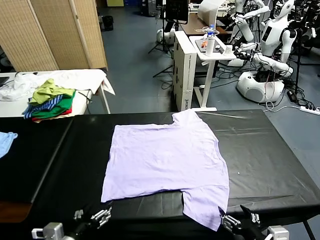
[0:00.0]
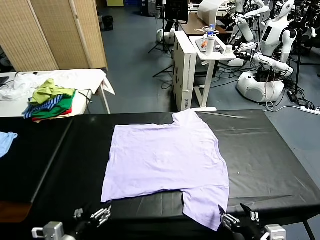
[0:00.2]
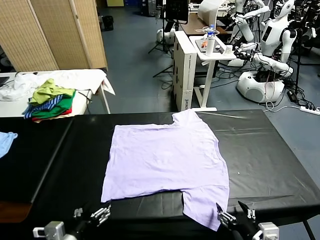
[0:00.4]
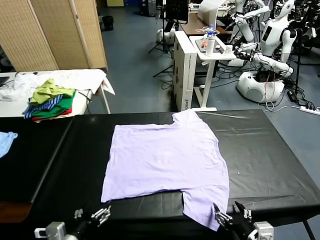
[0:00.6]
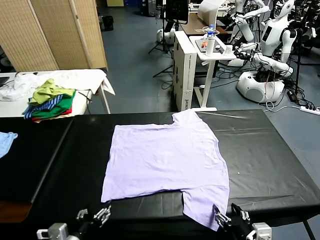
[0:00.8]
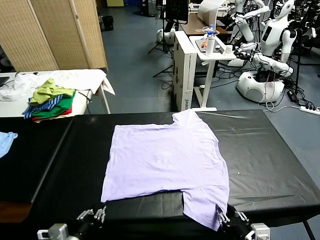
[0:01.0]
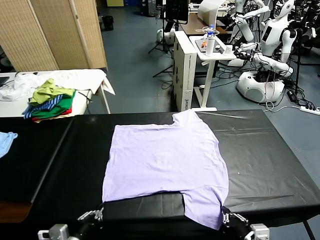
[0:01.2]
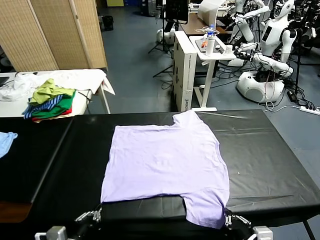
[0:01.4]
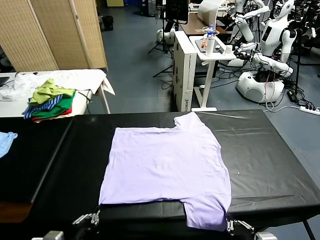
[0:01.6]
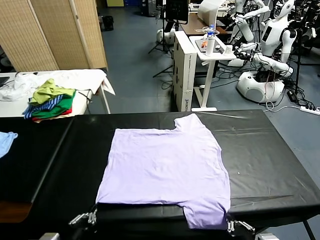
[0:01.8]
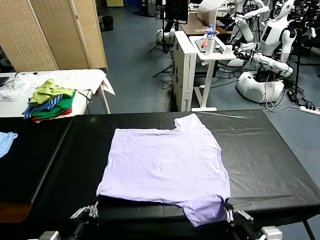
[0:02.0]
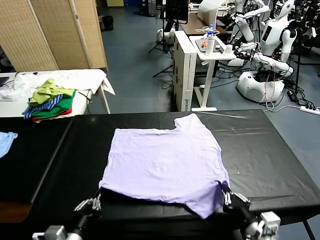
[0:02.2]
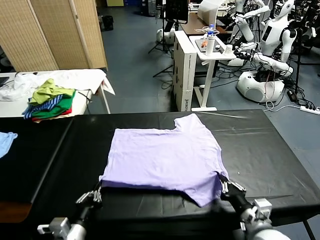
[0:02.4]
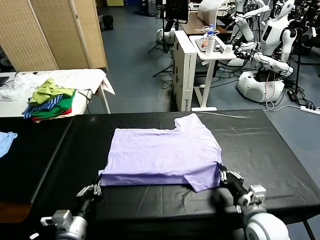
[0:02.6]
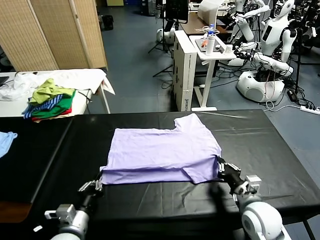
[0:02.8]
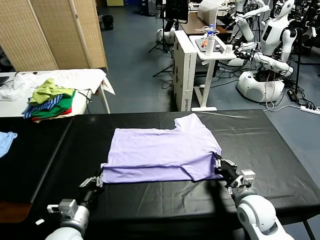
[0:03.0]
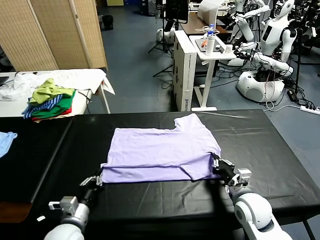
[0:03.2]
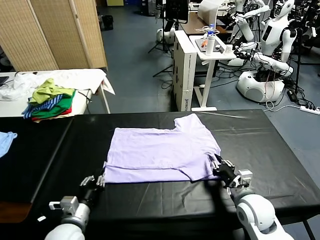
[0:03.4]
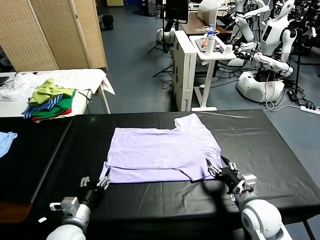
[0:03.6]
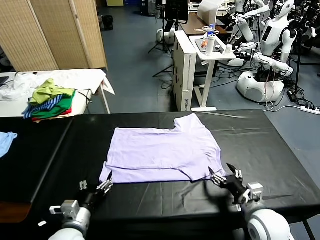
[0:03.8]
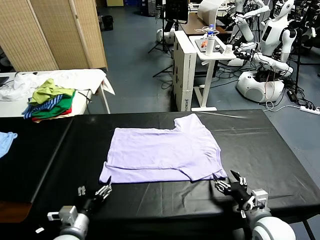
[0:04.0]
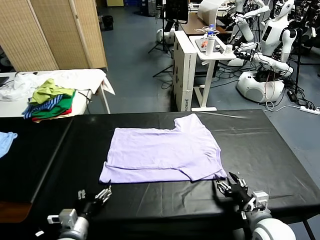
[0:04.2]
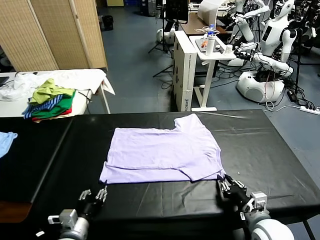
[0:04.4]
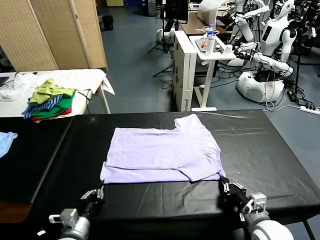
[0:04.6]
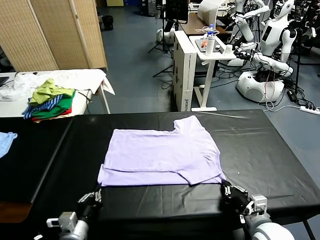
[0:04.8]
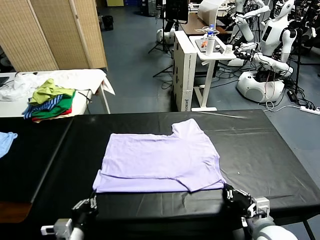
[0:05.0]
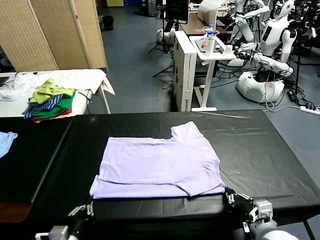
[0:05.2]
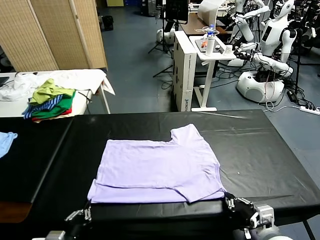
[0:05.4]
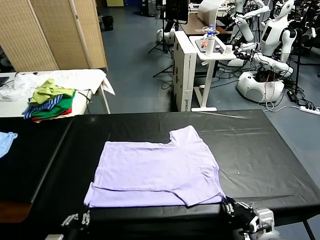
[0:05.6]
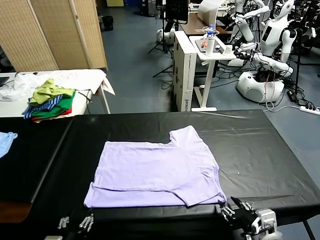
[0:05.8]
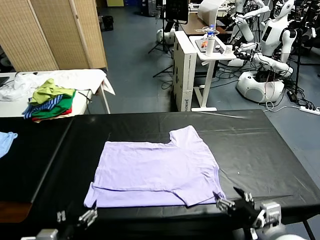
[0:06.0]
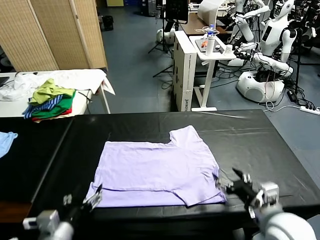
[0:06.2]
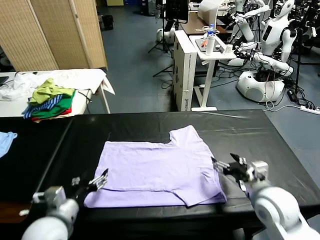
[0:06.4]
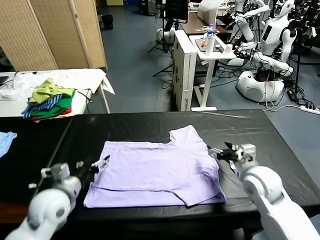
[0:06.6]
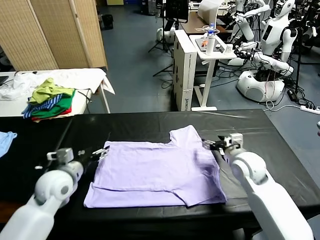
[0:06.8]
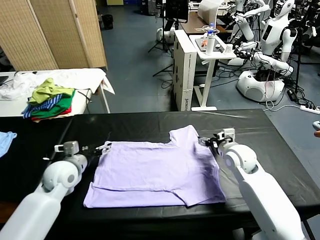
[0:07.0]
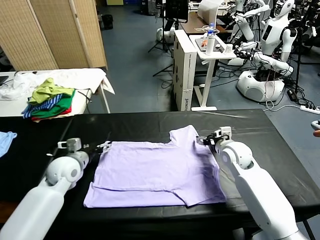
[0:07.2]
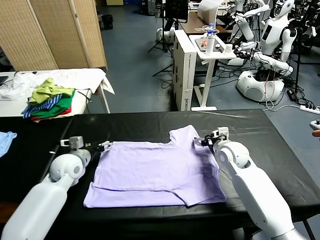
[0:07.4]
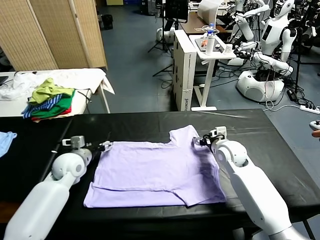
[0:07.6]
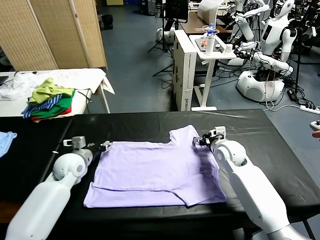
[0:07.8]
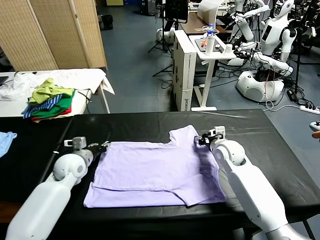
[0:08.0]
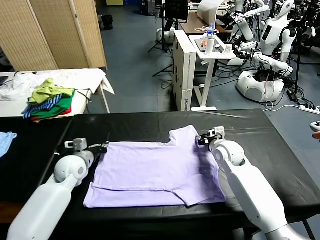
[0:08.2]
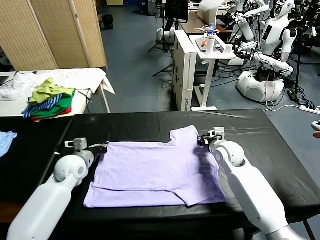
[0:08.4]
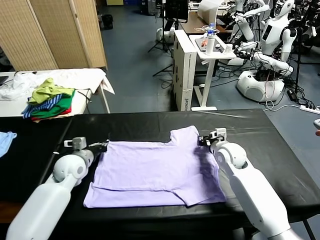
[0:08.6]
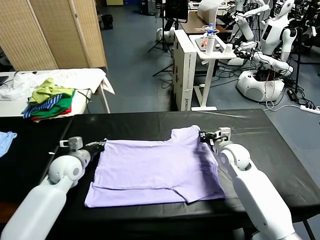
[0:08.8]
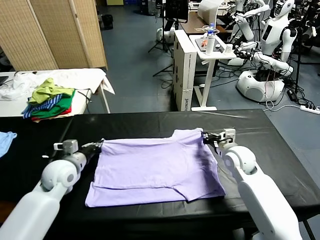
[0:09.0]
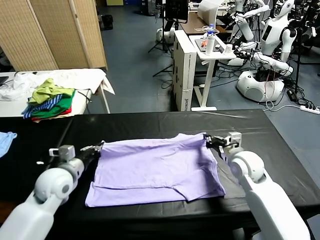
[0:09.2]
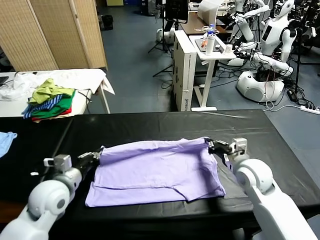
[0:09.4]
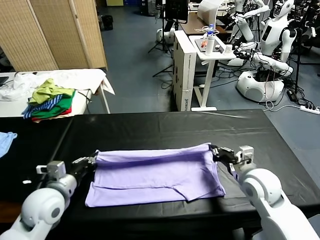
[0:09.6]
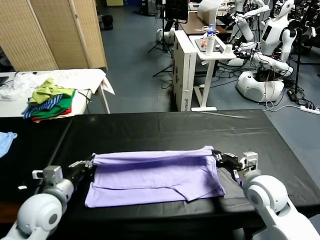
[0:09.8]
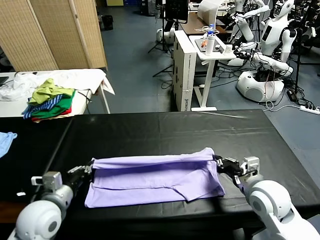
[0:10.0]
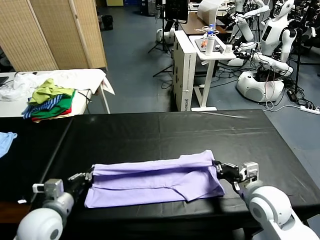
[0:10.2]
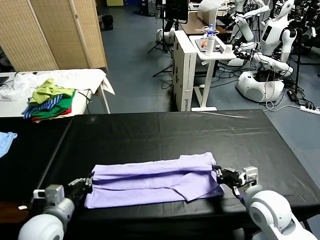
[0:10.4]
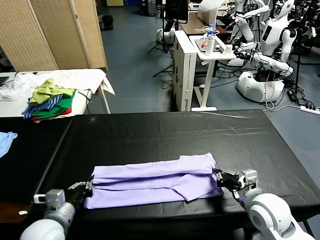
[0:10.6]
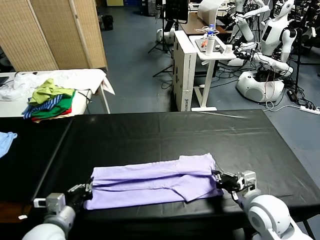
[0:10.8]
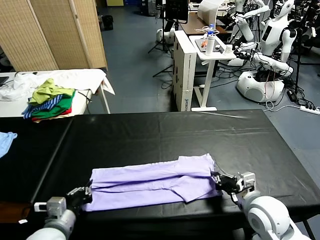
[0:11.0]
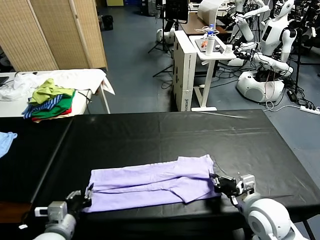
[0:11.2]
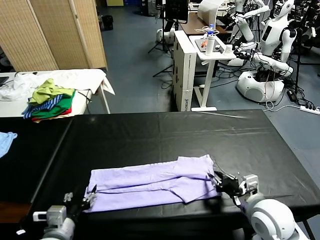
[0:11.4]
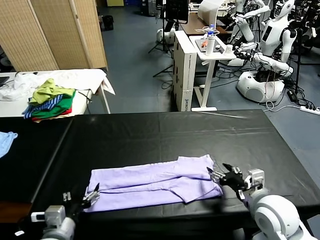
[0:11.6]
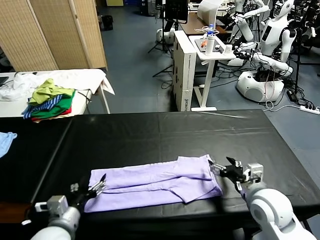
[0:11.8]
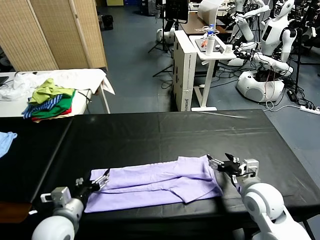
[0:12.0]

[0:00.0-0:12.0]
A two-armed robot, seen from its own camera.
Task of the whole recording: fold and organize the clothes.
Step, 0:00.0 to 0:01.4: use both grippers simultaneously to clamp the lower edge of the clothing fabric.
Step, 0:01.6 to 0:03.4: use both grippers to drag the lower edge of the fabric forward and fold it over the upper edge.
Step, 0:03.6 to 0:05.6: Drag the clothes downward with both gripper.
Step, 0:06.0 to 0:08.6: use both grippers simultaneously to clamp the upper edge of the clothing fabric.
Step, 0:08.8 to 0:11.4: use both grippers to drag the upper edge of the fabric backward and fold it over the lower edge.
0:01.6 to 0:03.0: The left gripper moves forward and downward, some 10 cm. Meanwhile the right gripper heads forward, covering about 20 cm.
0:03.0 to 0:04.4: The right gripper shifts roughly 10 cm backward, and opens, then closes once more. Meanwhile the left gripper opens and closes again.
0:04.4 to 0:06.0: The grippers both shift upward by approximately 10 cm. The right gripper opens up; the left gripper opens up.
0:06.0 to 0:07.6: Both grippers move forward, approximately 25 cm. The right gripper closes up.
0:07.6 to 0:09.0: The grippers both shift backward by about 10 cm. The right gripper closes; the left gripper closes.
0:09.0 to 0:10.4: The grippers both shift backward by approximately 10 cm.
0:10.4 to 0:12.0: The left gripper opens; the right gripper moves forward, about 5 cm, and opens.

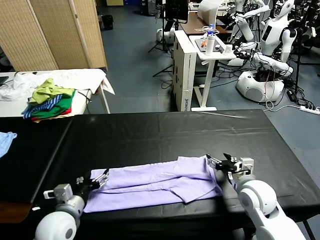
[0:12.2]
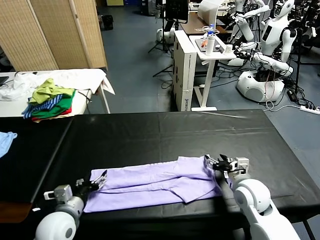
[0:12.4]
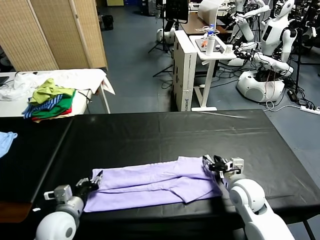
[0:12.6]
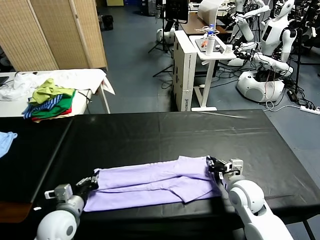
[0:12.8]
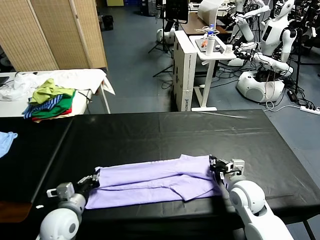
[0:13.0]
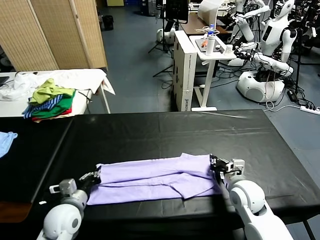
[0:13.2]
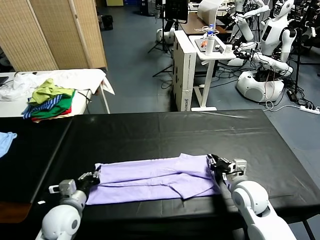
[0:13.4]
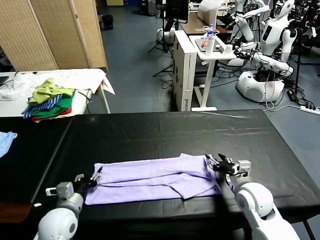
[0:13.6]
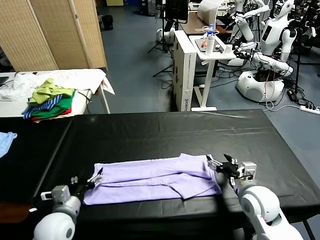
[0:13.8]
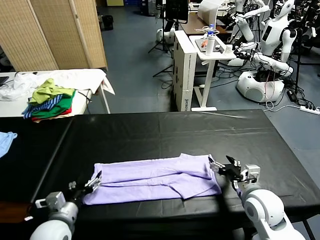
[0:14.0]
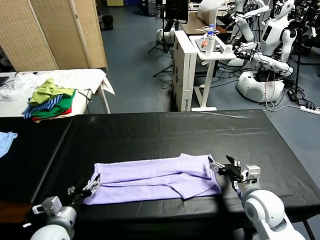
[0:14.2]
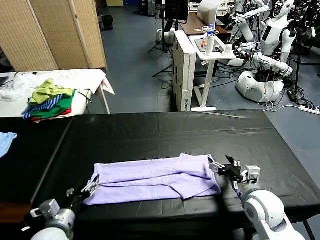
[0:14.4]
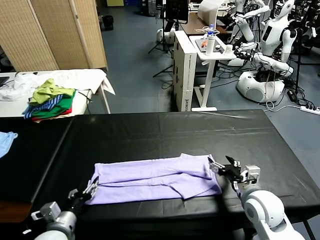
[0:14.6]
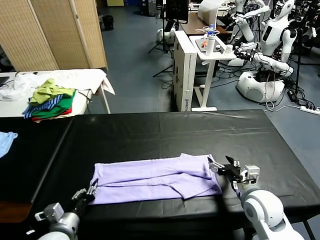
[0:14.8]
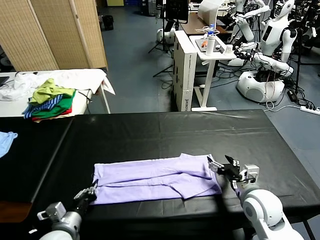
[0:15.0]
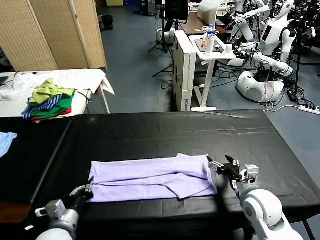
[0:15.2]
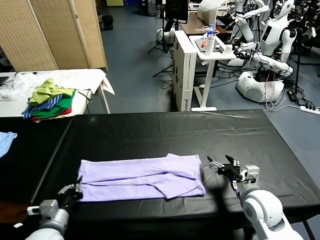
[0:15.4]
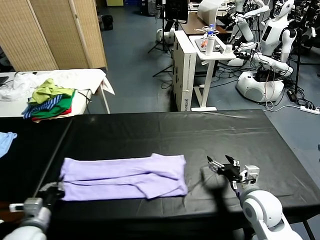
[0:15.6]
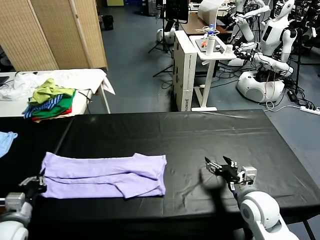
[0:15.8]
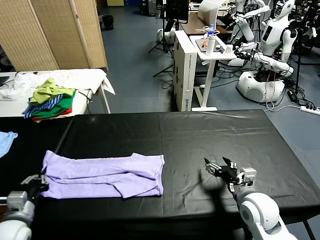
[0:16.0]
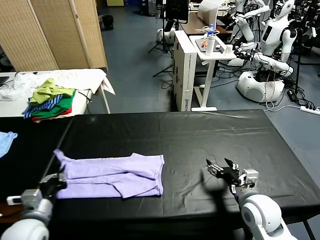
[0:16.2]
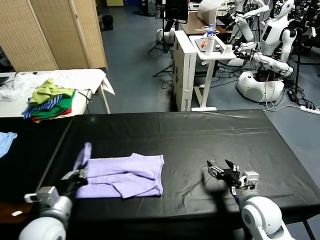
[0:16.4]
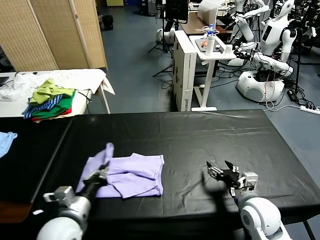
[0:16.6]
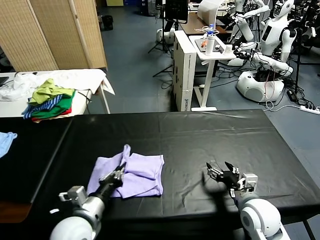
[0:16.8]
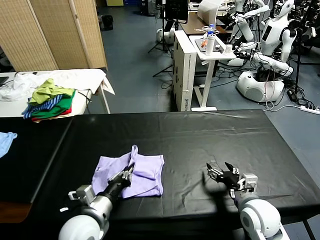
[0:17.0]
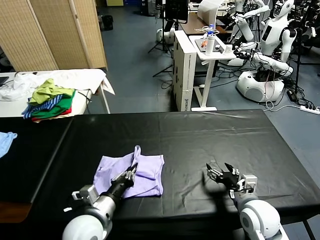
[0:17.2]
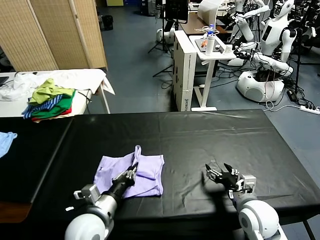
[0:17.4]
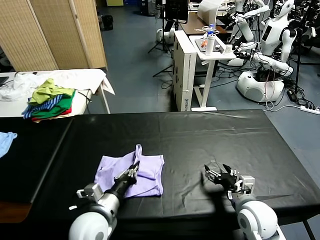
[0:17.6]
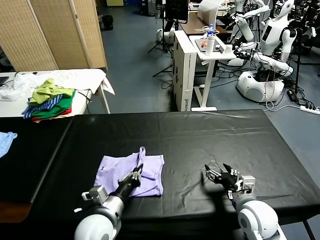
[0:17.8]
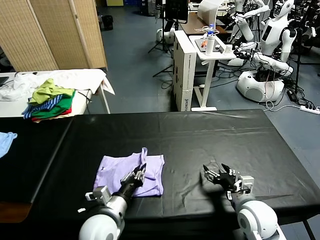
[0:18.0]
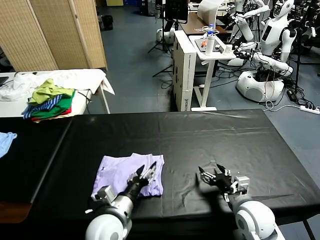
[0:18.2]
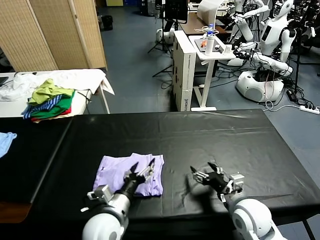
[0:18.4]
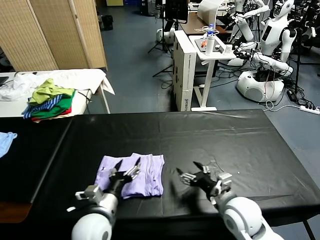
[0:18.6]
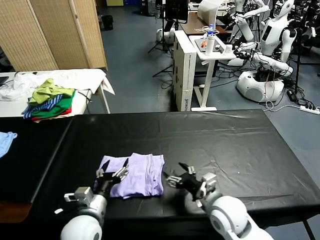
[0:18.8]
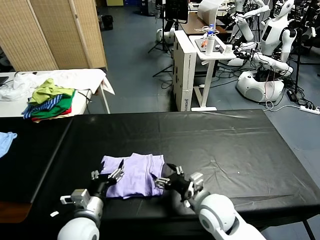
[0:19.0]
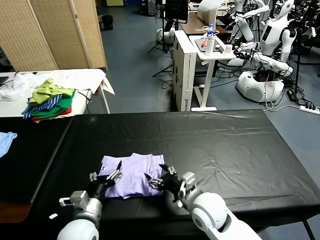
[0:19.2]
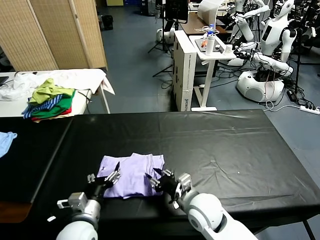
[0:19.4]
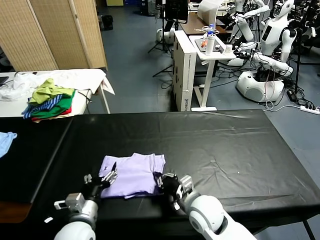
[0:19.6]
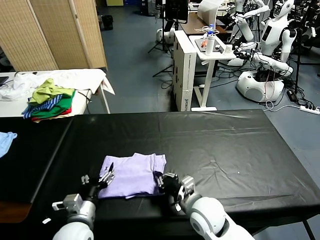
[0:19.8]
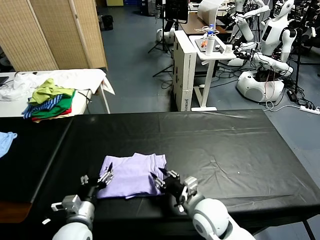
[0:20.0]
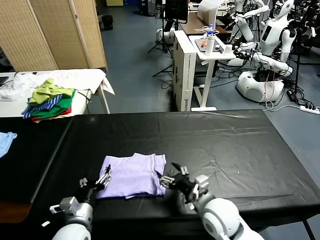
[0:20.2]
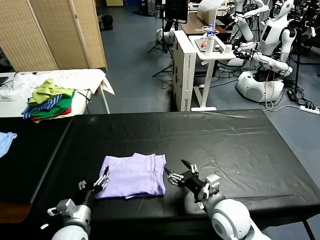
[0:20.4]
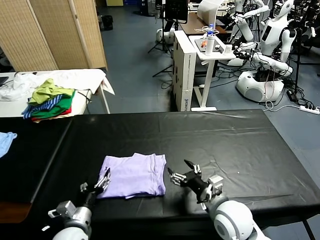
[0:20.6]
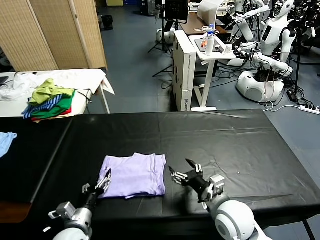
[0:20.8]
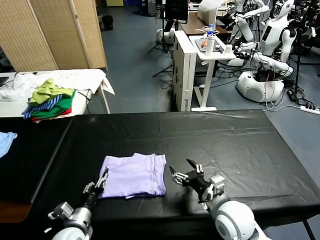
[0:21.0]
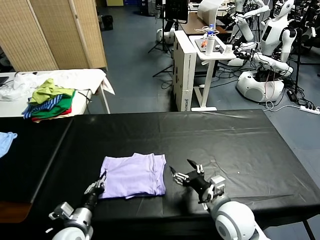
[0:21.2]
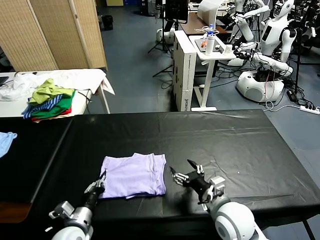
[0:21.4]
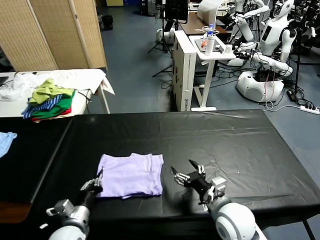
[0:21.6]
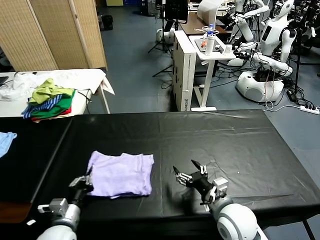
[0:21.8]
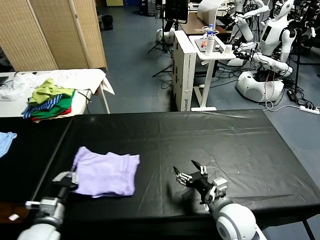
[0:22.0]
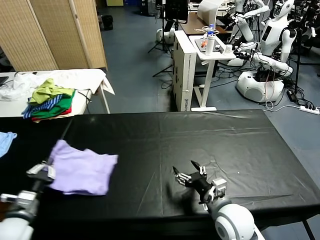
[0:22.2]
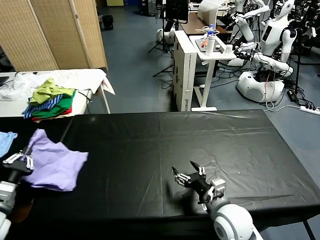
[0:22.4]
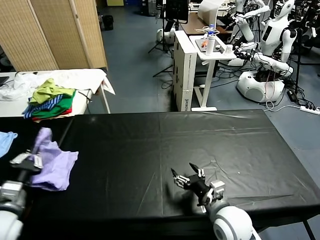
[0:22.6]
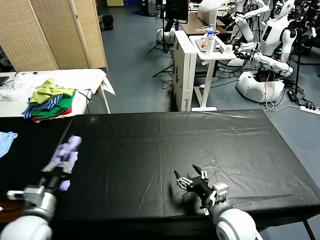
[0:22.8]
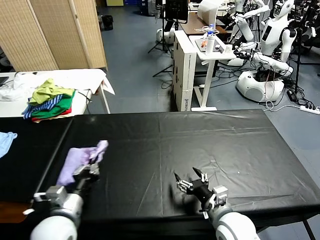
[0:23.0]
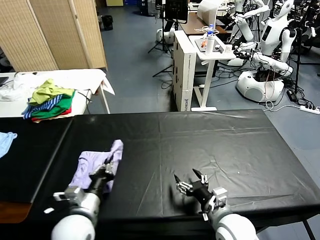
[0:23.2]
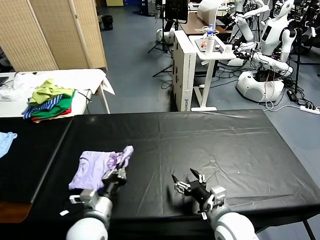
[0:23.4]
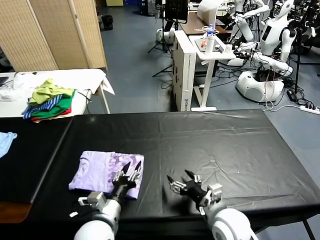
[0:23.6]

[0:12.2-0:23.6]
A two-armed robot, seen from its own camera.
Task of the whole recording: fold and organize the clothes.
Step, 0:12.2 to 0:15.4: use the left gripper to clamp the left edge of the fabric.
Step, 0:15.6 to 0:18.2: use the left gripper to drag the left edge of the fabric to the left and folds it over the right edge.
Step, 0:18.4 to 0:23.4: Flip the folded clothes over with left gripper.
0:12.2 to 0:13.6: The right gripper closes, then reopens; the left gripper closes, then reopens.
0:13.6 to 0:15.0: The left gripper closes.
0:15.0 to 0:16.4: The left gripper goes approximately 5 cm upward, and travels to the left and back again, approximately 10 cm each way.
0:16.4 to 0:17.8: The left gripper moves to the right, roughly 10 cm.
0:17.8 to 0:19.4: The right gripper is displaced to the left by approximately 15 cm, and closes up. Meanwhile the left gripper is displaced to the left by roughly 5 cm, and opens up.
0:19.4 to 0:20.8: The right gripper is displaced to the right by roughly 5 cm, and opens. Meanwhile the left gripper goes approximately 5 cm downward, and closes.
0:20.8 to 0:22.2: The left gripper travels to the left and upward by approximately 20 cm, and closes its fingers.
0:22.2 to 0:23.6: The left gripper travels to the right by about 25 cm, and opens up.
